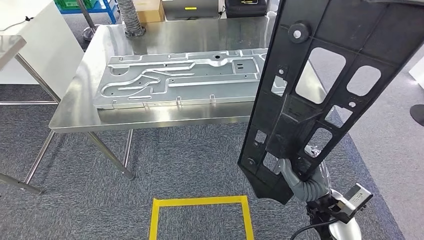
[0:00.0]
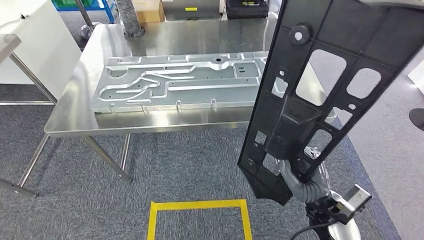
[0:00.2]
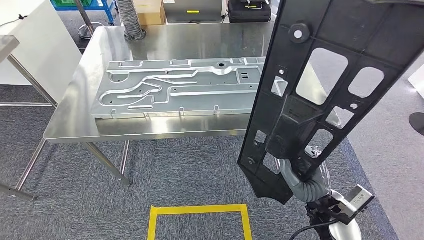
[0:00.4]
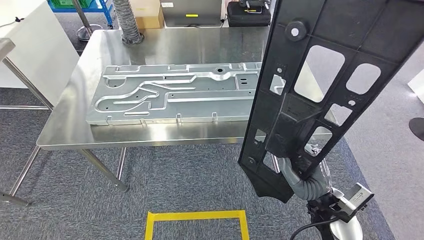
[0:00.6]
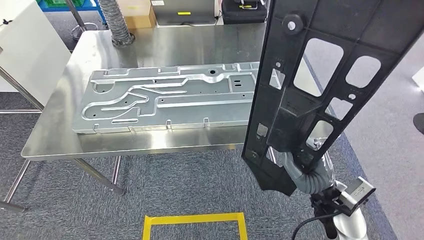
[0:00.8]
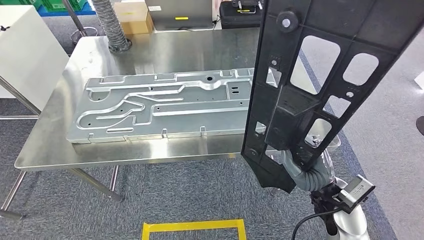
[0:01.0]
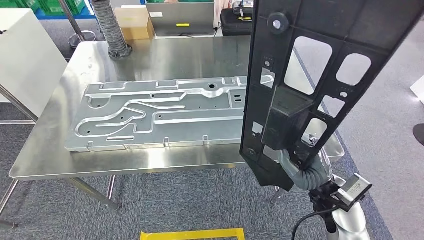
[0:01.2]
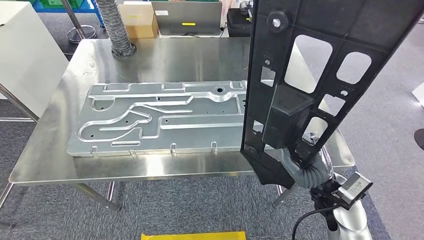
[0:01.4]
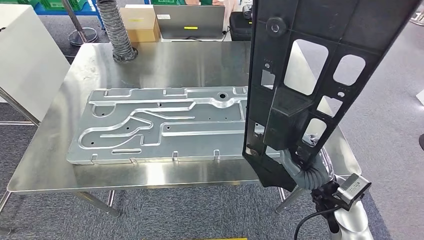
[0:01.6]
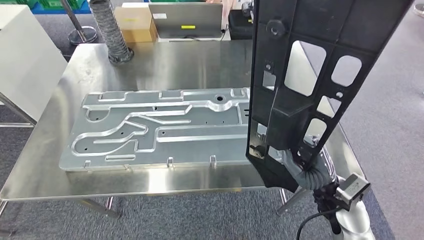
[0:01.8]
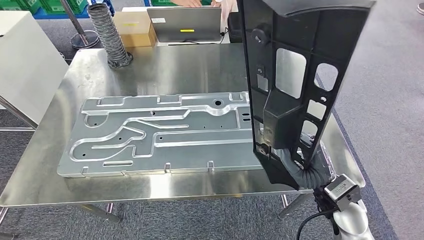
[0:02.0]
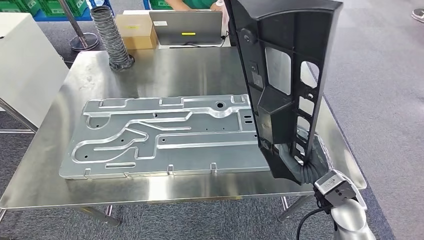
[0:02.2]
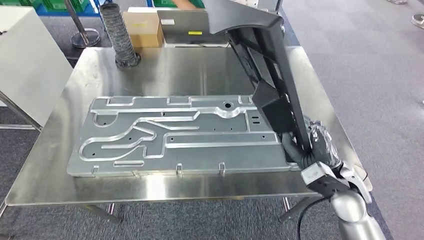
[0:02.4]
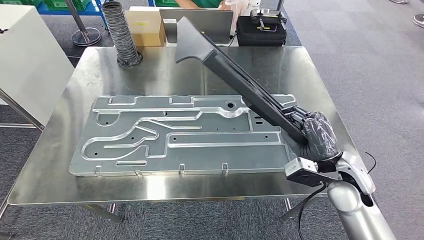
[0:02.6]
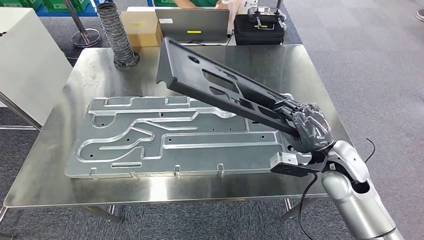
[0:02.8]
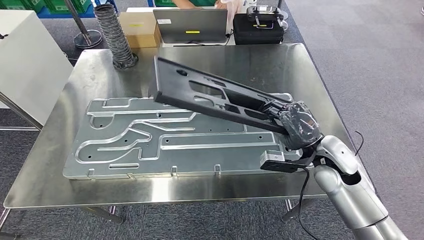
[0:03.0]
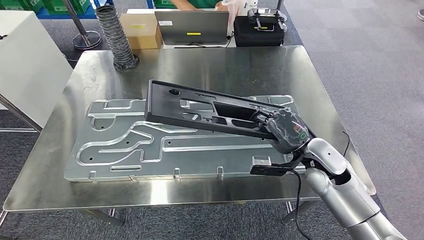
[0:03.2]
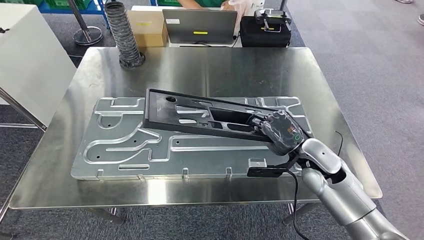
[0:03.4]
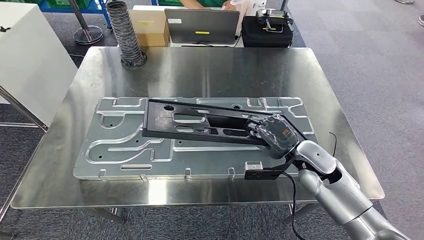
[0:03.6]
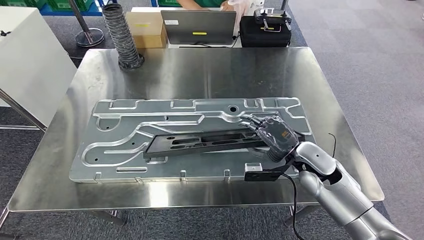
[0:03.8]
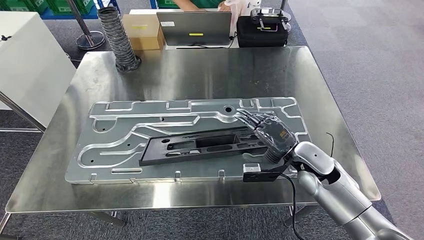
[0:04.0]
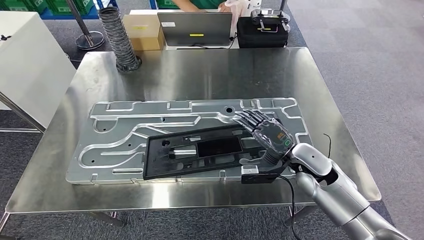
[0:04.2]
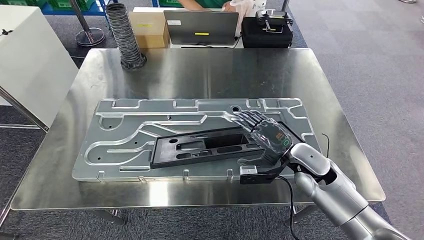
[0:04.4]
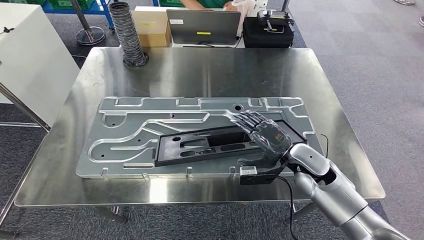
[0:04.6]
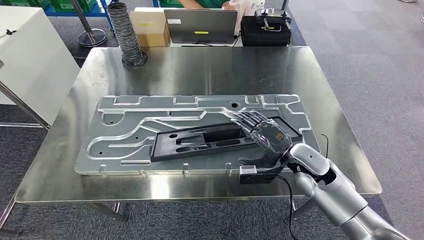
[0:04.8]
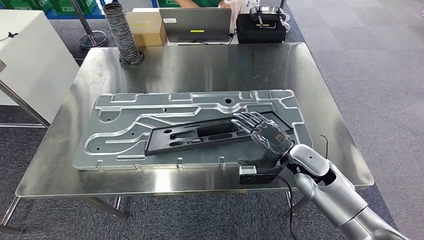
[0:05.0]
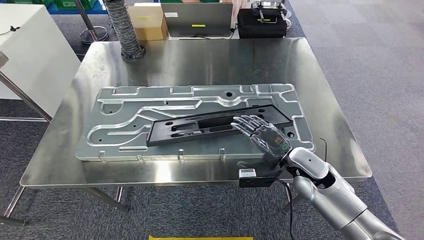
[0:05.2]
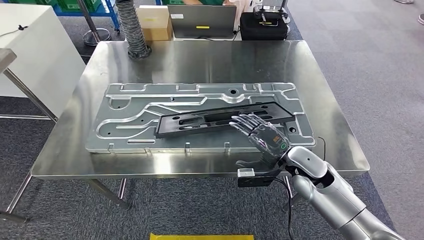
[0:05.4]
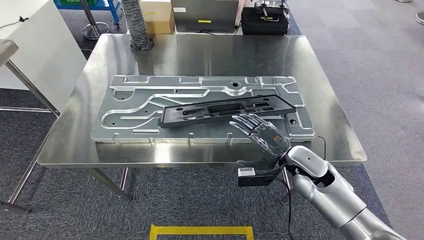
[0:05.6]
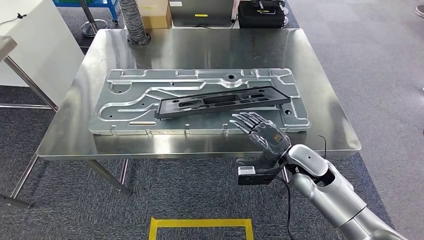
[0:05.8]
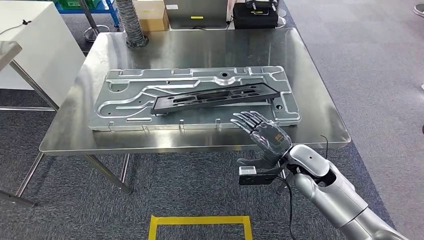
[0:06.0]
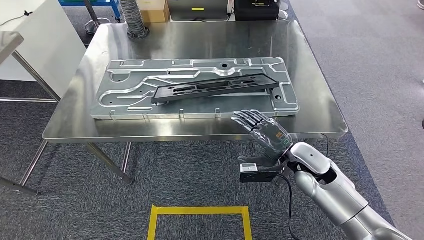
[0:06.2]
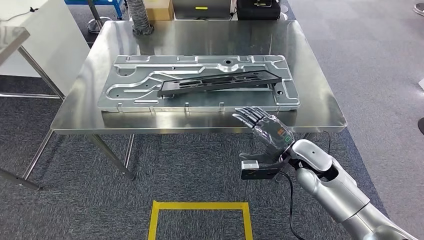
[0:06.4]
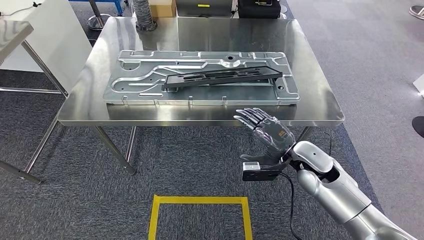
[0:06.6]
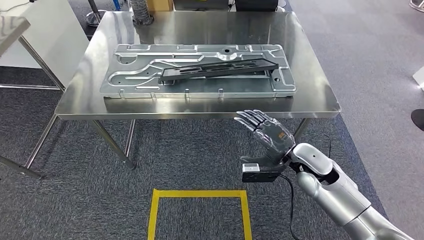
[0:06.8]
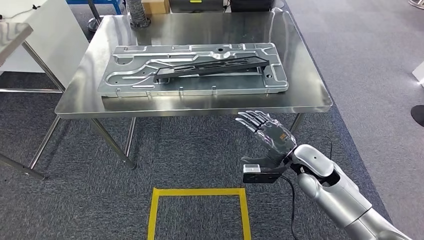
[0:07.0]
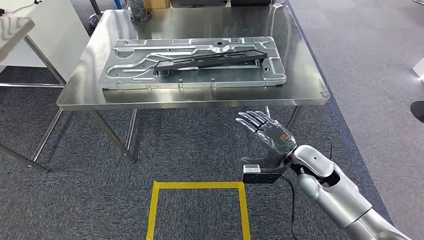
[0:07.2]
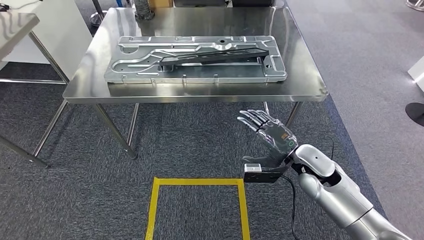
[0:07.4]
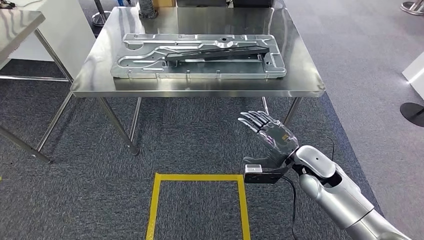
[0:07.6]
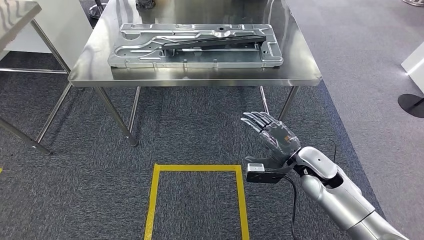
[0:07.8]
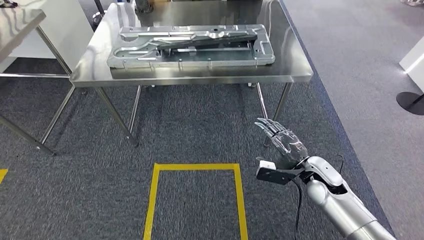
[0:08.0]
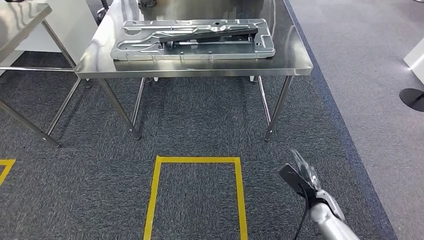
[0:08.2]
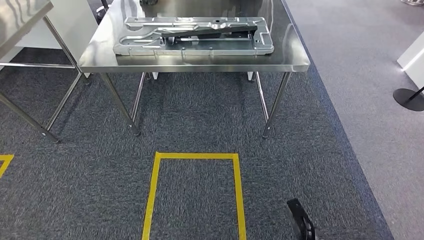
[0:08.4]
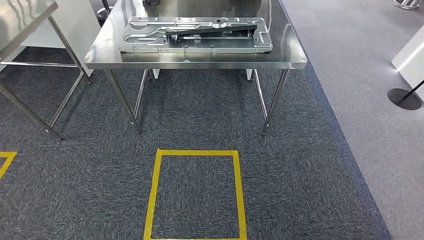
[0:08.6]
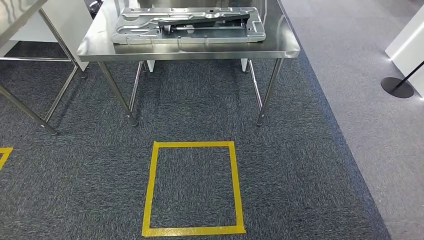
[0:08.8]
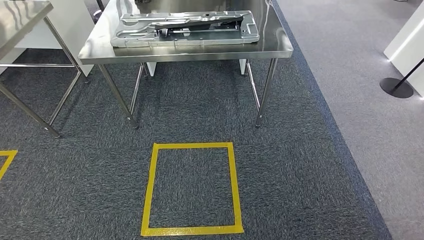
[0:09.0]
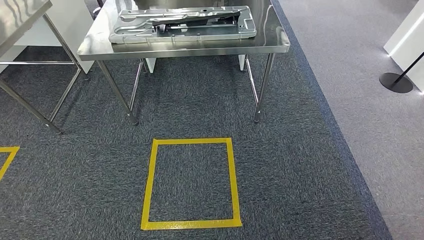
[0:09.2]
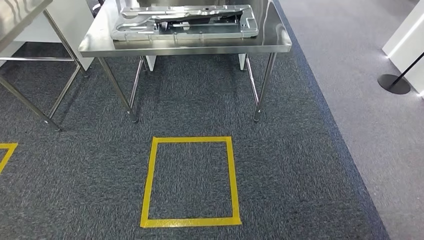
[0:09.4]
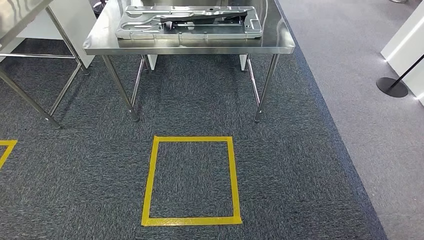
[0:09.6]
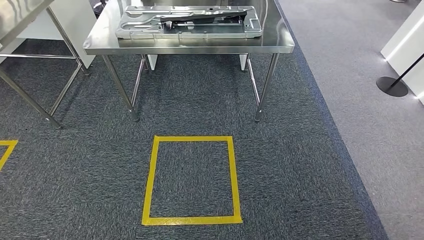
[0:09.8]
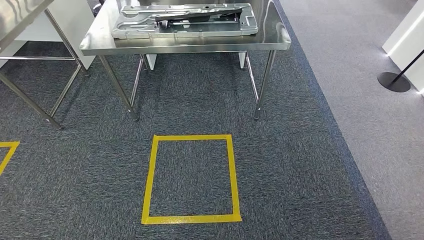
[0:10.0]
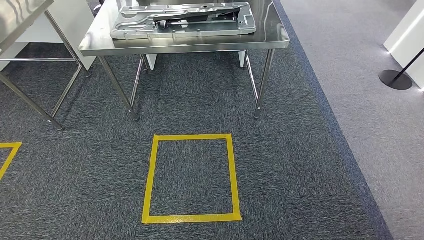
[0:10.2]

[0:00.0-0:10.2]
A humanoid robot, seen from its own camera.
Step, 0:01.8 to 0:05.2: Insert the large material into the corresponding slot on the workbench.
Step, 0:06.8 to 0:10.2: Move to the initial position of the shelf.
0:08.8 to 0:10.2: The right hand goes roughly 5 cm to the left.

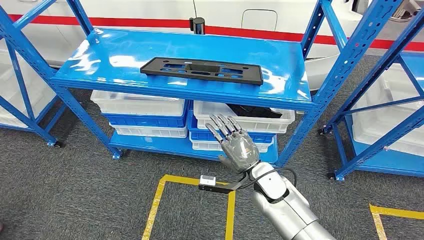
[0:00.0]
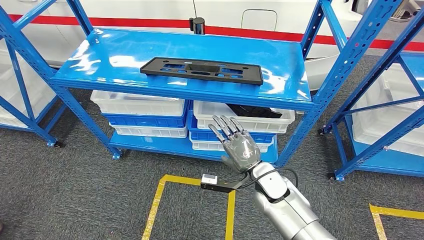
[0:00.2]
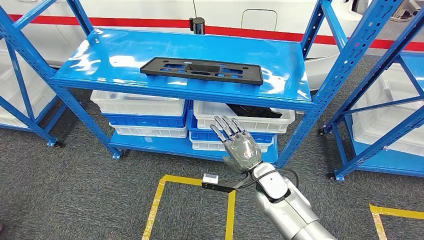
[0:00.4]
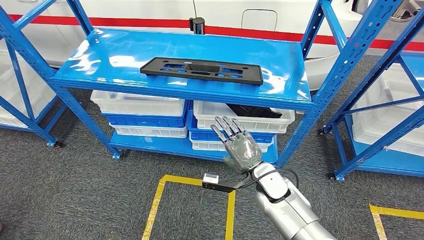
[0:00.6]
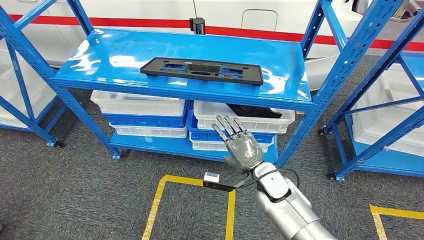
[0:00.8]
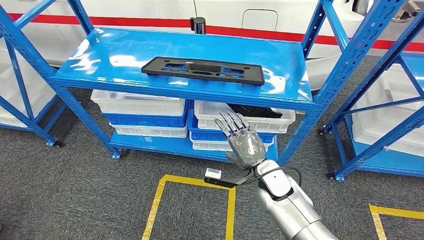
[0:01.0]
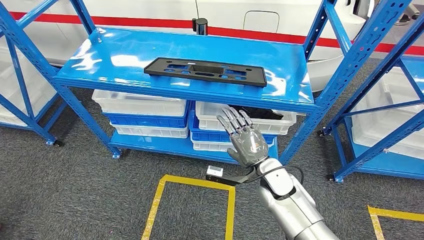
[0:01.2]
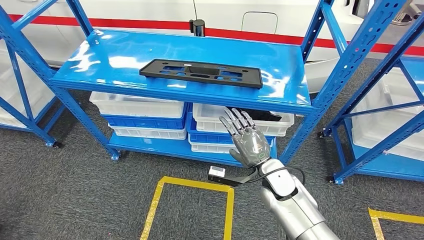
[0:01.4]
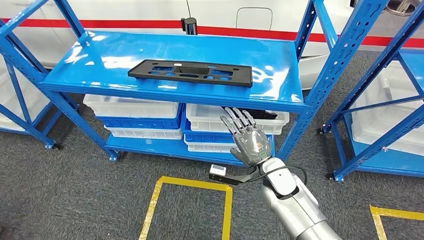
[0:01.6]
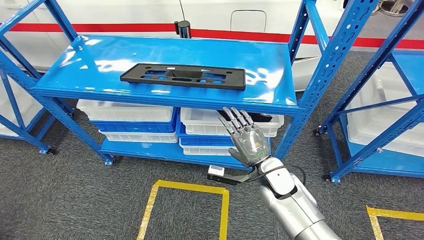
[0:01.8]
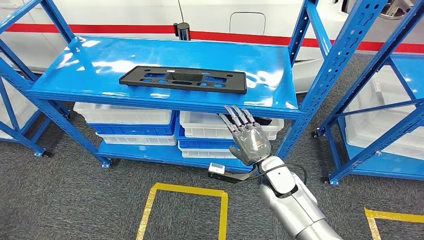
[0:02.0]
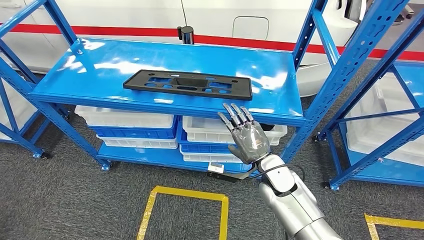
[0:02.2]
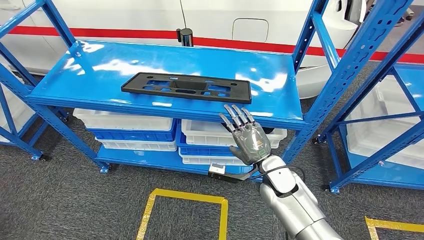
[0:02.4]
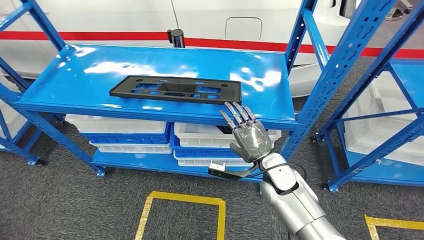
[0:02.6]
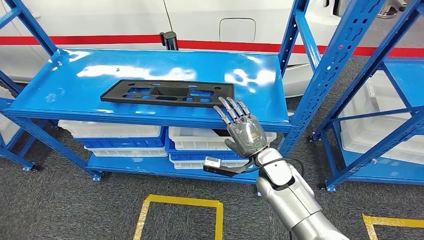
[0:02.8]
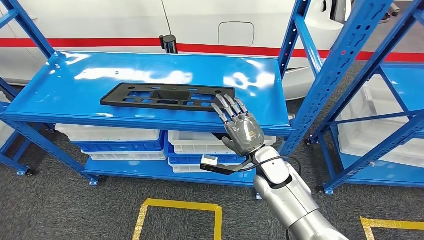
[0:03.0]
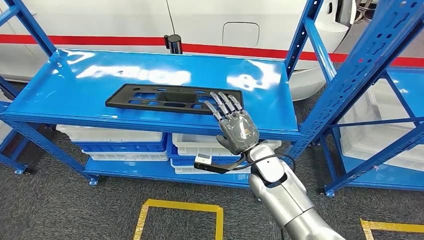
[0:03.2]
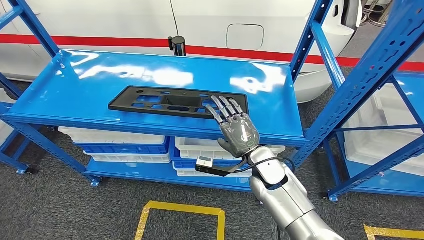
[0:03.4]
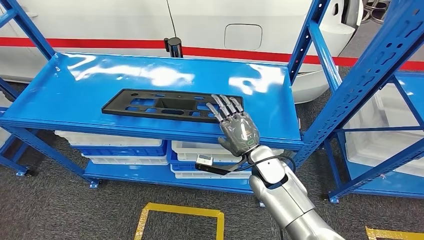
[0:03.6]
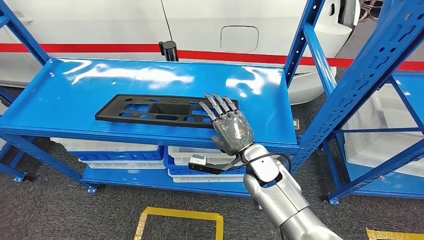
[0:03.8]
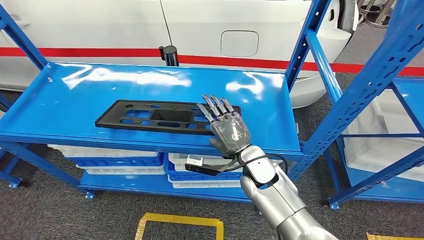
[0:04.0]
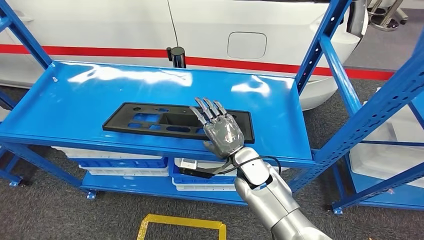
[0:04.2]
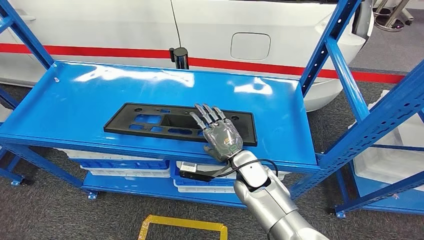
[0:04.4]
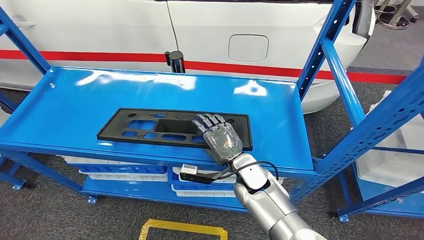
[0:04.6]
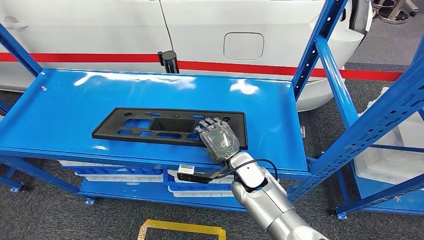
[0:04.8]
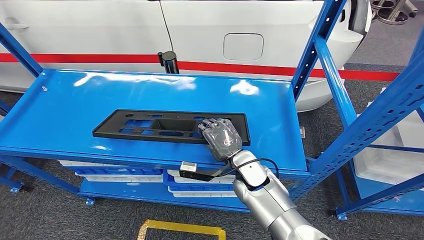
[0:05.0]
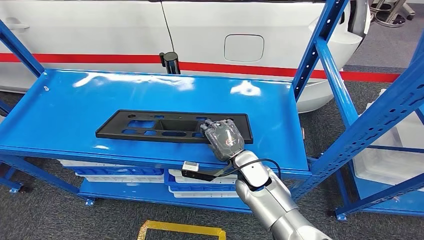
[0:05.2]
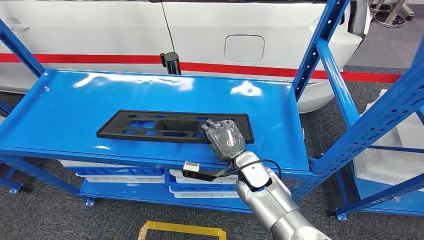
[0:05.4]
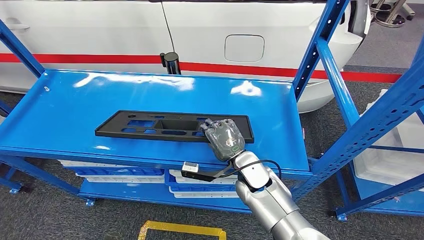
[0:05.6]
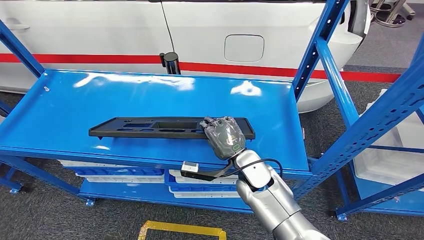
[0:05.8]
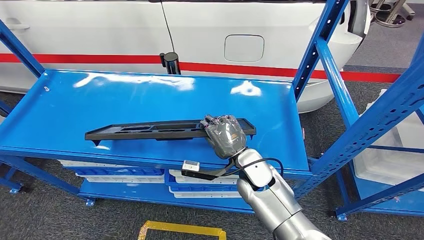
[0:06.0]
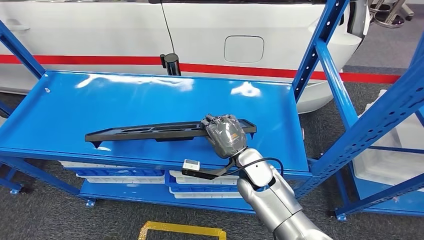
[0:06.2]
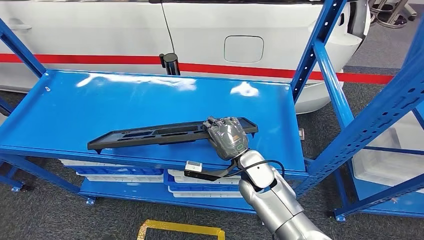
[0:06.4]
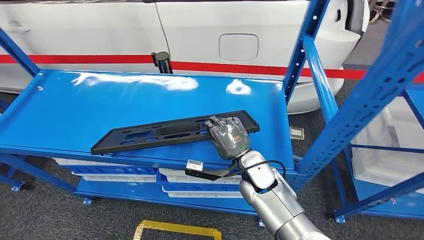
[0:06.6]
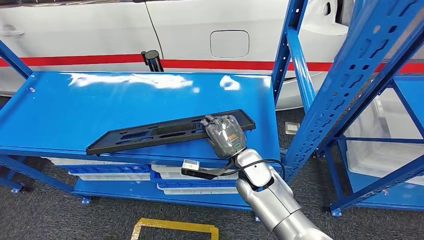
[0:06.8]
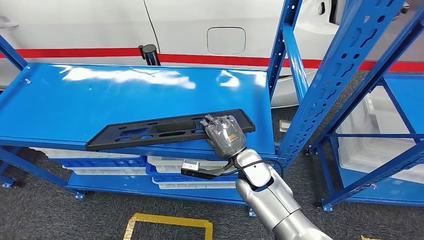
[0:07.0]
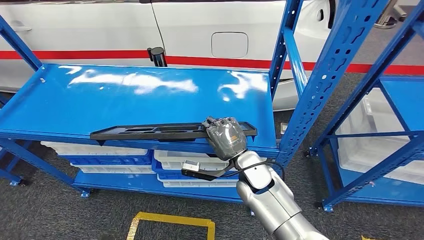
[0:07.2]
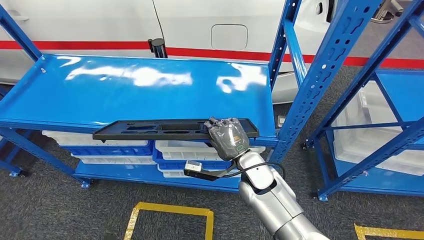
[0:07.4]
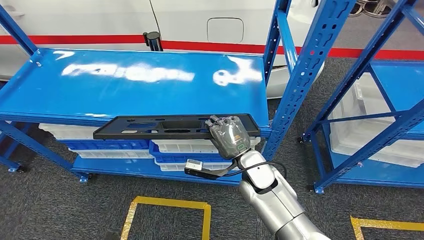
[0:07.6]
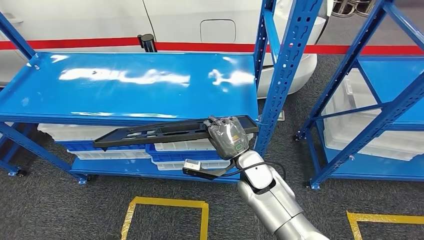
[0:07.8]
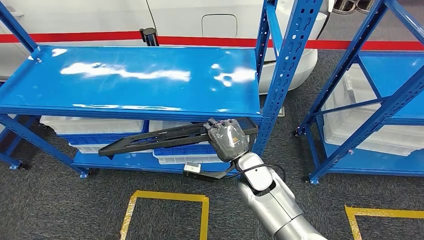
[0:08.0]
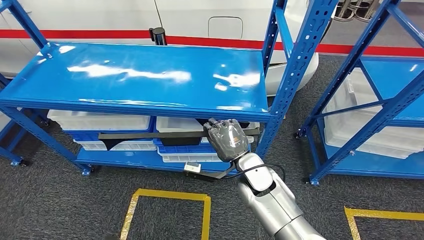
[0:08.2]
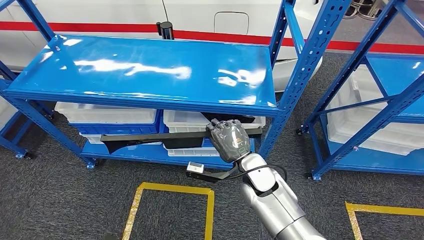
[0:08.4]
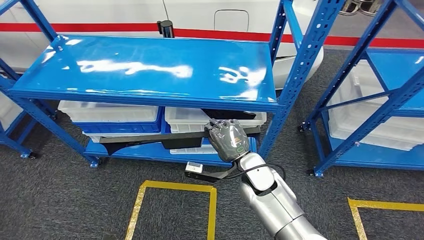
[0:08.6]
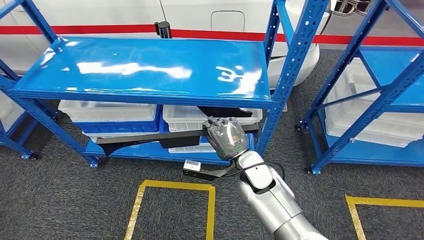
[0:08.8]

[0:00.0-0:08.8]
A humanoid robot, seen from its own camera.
Step, 0:00.0 to 0:07.8: Pick up the large material from the shelf.
